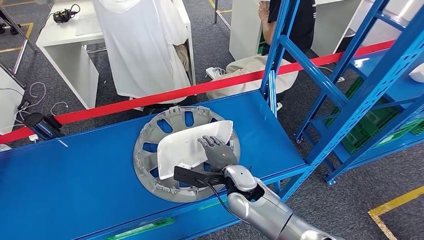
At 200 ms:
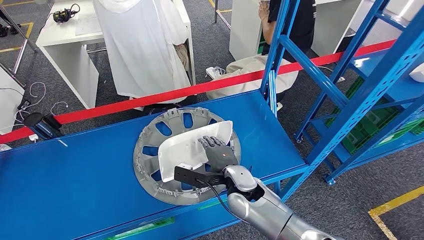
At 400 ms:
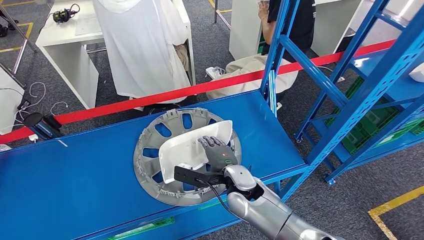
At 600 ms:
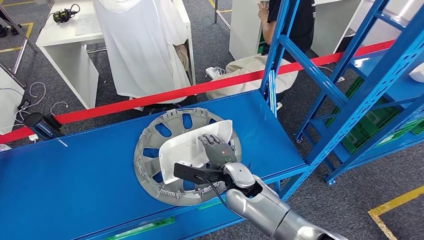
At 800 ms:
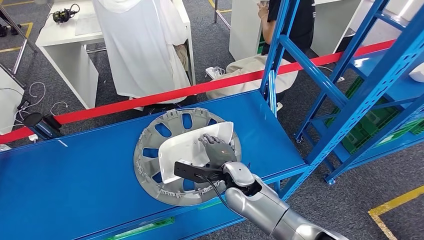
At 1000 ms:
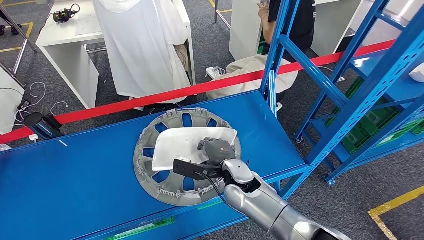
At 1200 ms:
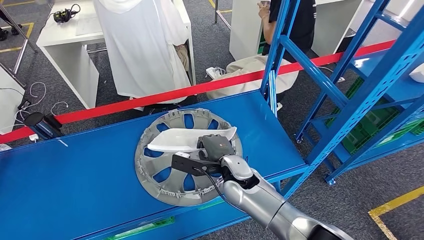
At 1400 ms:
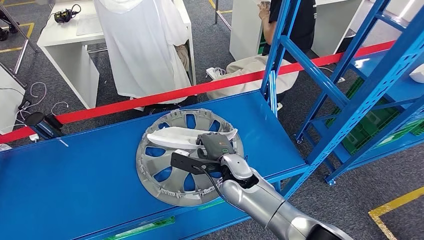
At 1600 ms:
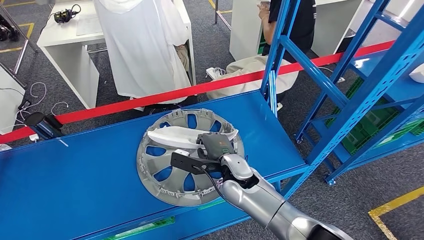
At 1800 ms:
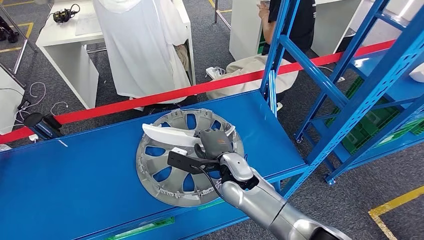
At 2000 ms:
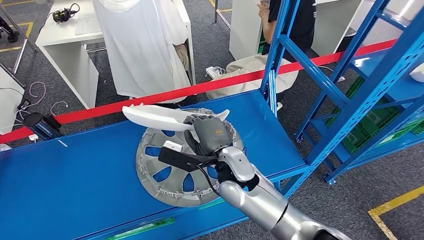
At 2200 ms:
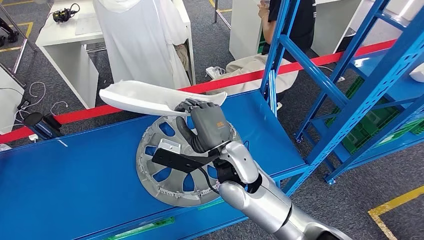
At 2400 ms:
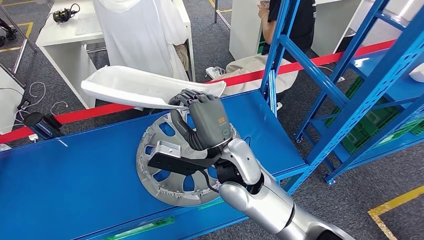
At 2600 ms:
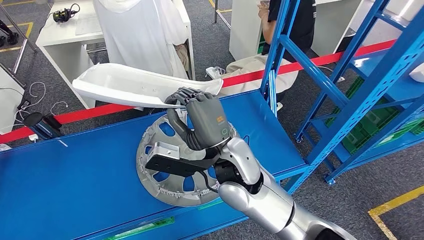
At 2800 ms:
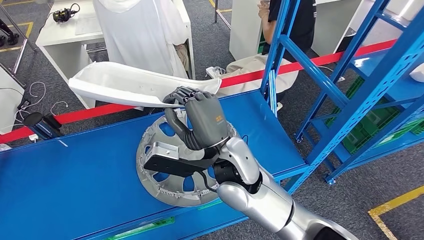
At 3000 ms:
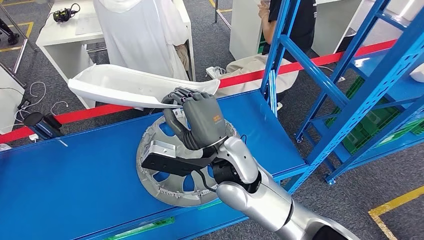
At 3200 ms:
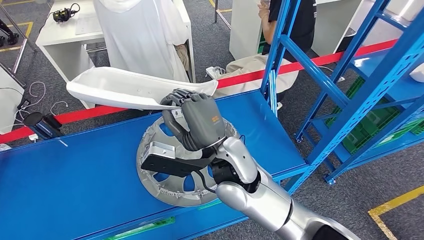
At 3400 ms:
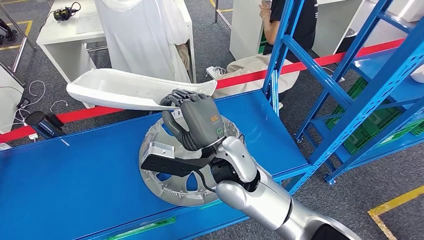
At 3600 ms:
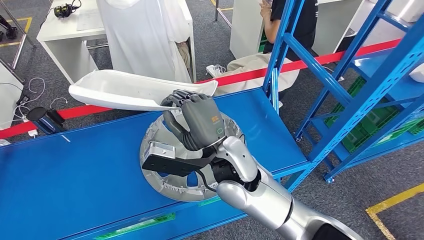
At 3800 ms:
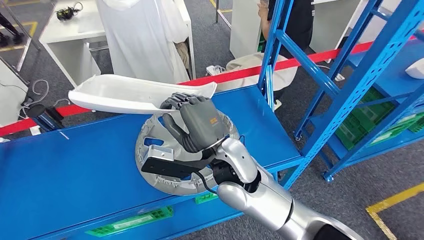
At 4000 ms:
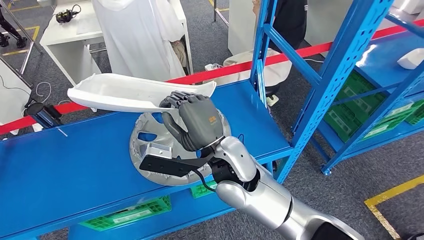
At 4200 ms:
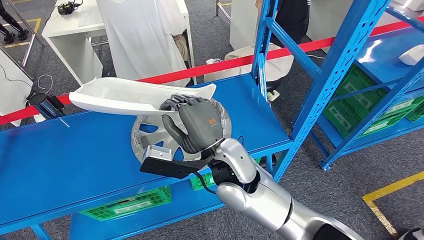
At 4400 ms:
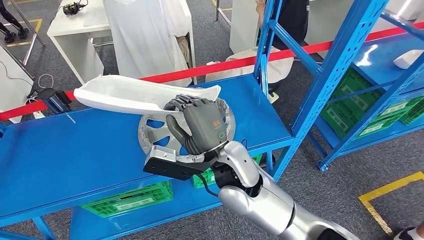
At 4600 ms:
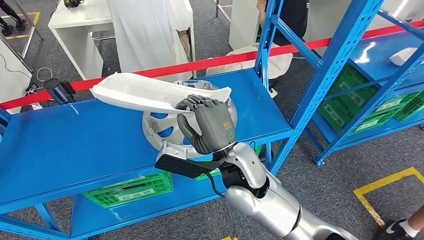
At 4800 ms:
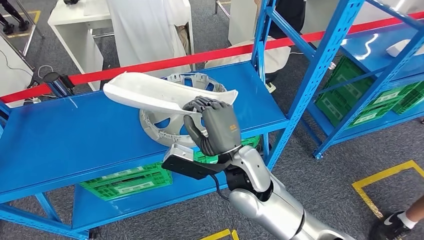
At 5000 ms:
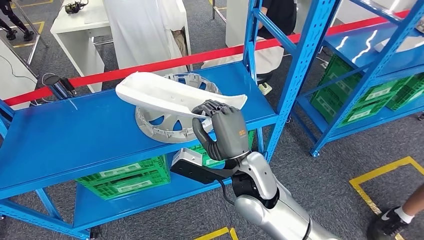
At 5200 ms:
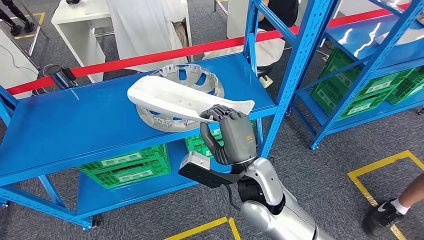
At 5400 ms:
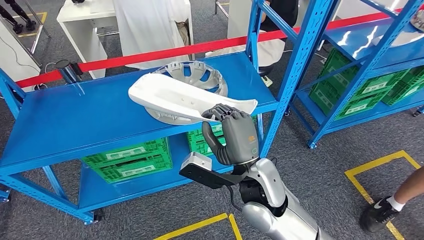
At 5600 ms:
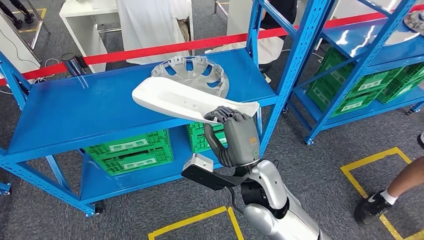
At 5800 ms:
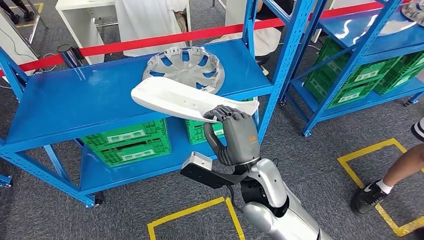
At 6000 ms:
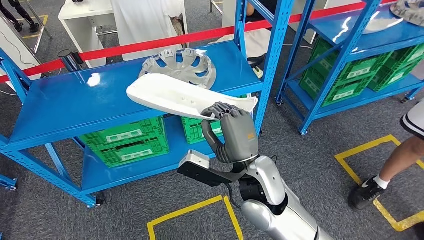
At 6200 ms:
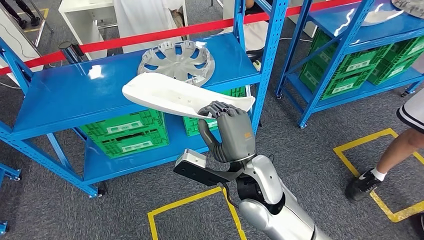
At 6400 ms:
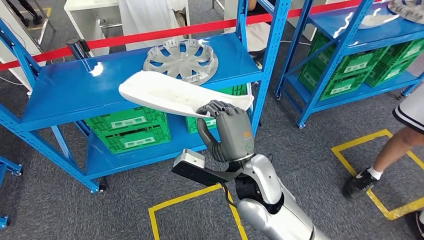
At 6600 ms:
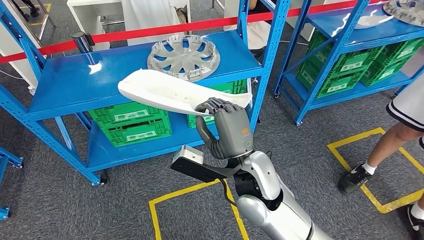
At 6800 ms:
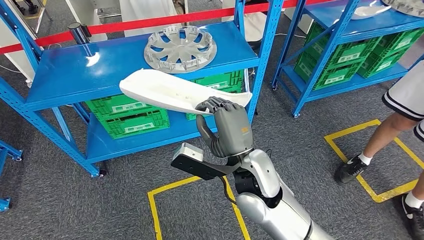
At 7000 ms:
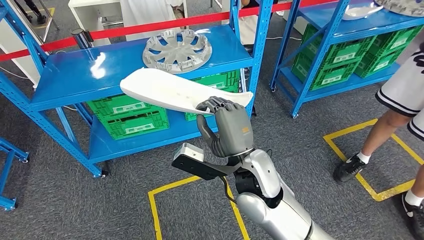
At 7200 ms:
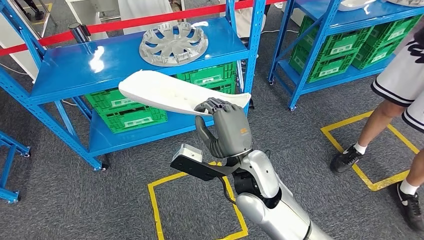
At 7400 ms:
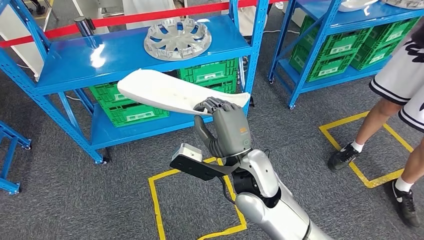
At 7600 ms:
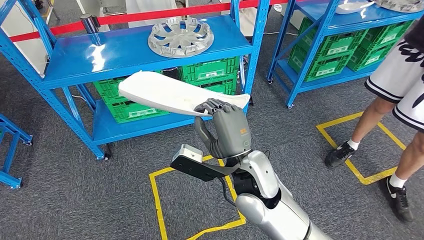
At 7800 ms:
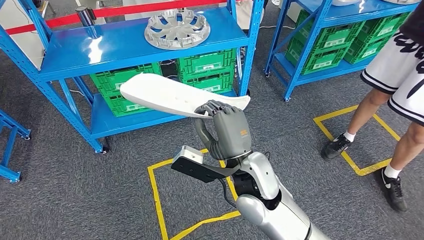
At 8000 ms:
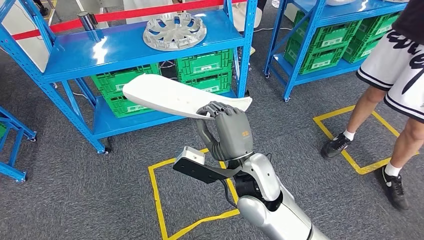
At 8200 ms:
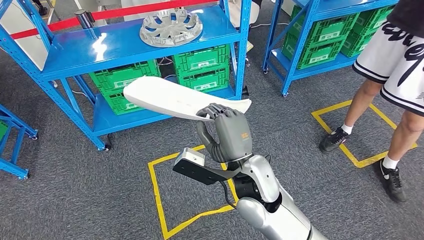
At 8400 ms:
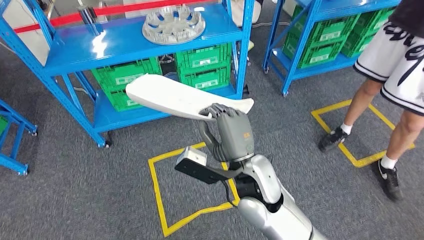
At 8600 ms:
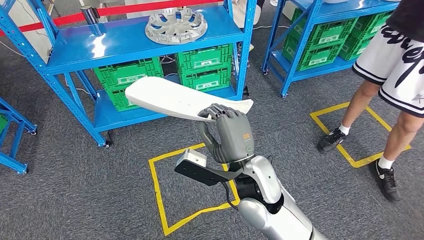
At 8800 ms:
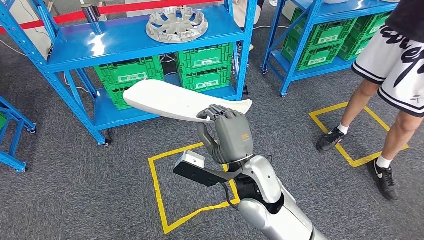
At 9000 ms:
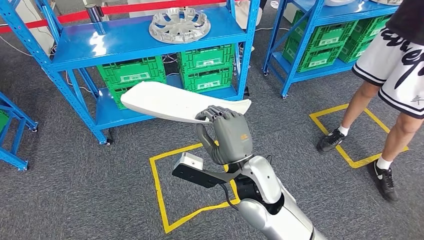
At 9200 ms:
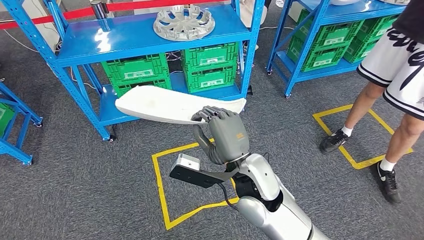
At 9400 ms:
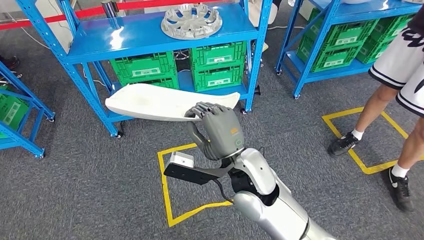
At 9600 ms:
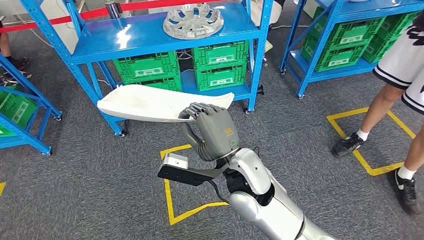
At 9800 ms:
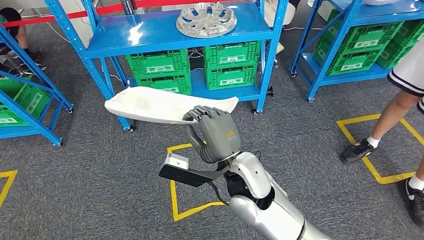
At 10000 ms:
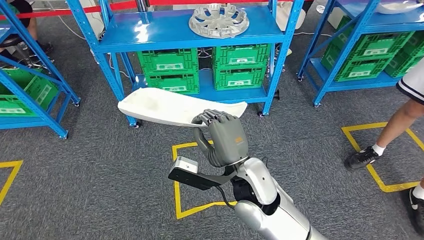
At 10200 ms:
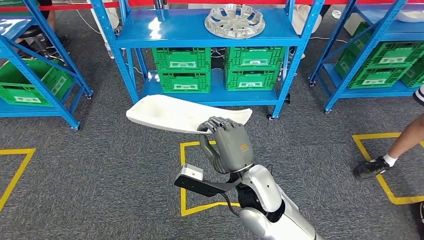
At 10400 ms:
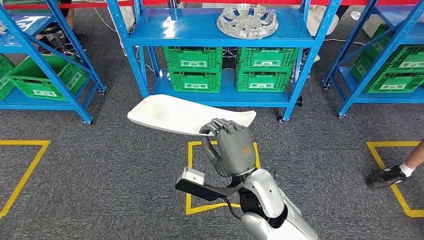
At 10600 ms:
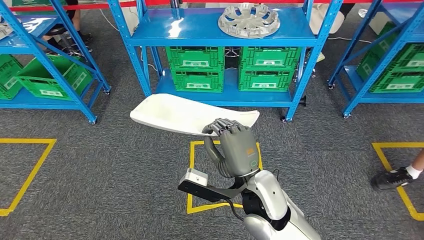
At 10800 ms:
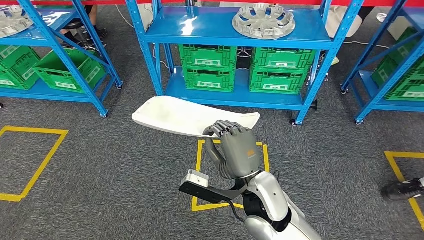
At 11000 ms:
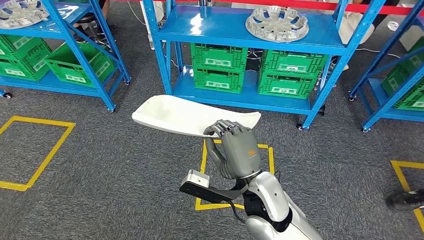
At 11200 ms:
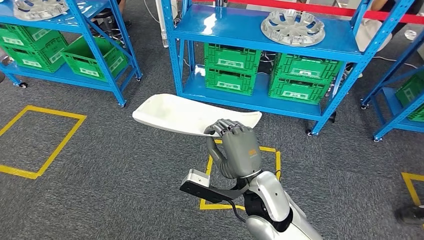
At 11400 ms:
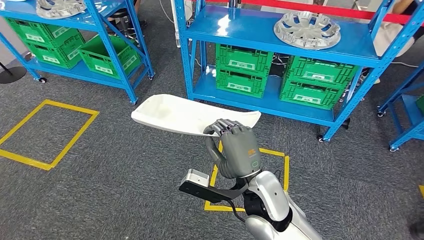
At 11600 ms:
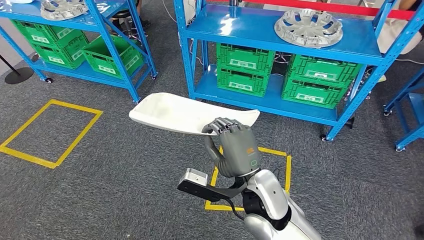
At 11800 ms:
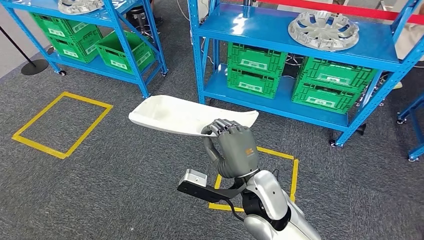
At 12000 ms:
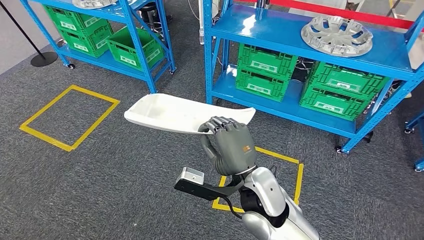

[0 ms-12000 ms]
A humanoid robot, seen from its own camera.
Step, 0 ms to 3000 ms: Pick up the small component from the shelf.
0 ms to 1600 ms: There are only small adjustments of the hands.
1600 ms to 3000 ms: The right hand is displaced upward by about 15 cm.

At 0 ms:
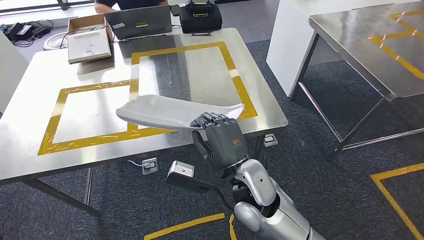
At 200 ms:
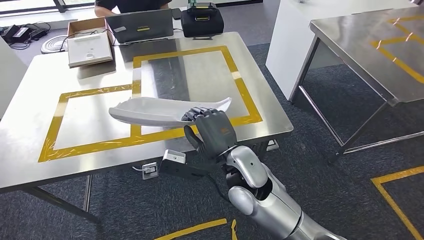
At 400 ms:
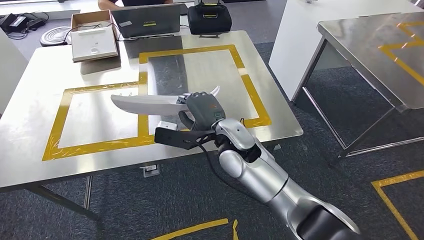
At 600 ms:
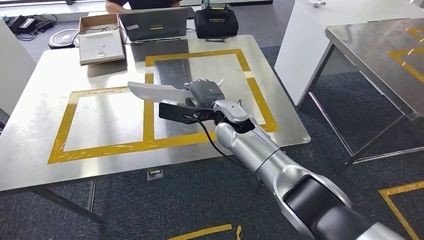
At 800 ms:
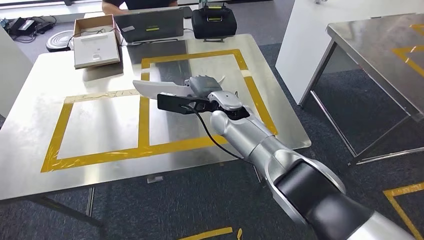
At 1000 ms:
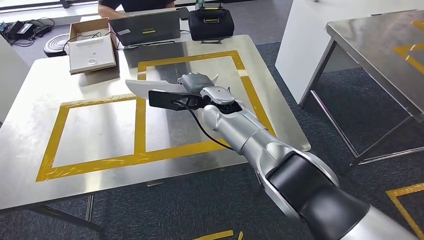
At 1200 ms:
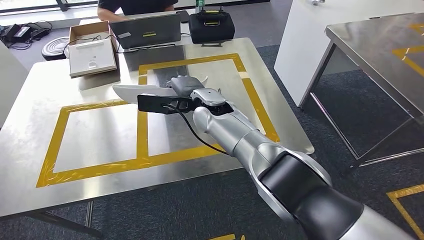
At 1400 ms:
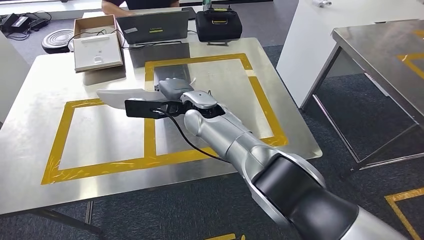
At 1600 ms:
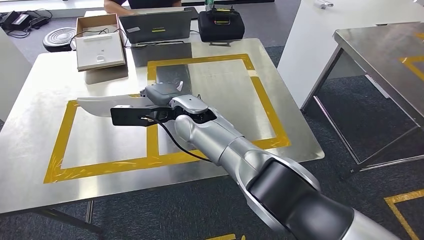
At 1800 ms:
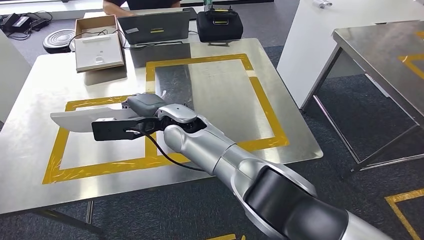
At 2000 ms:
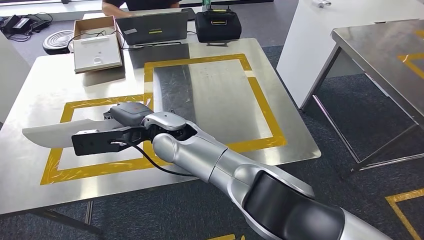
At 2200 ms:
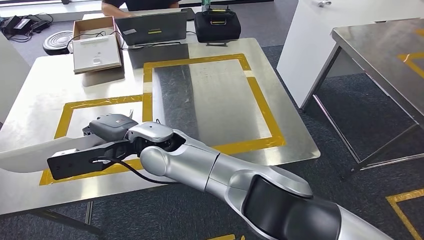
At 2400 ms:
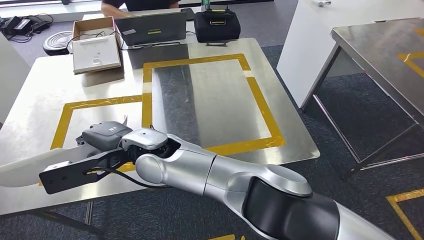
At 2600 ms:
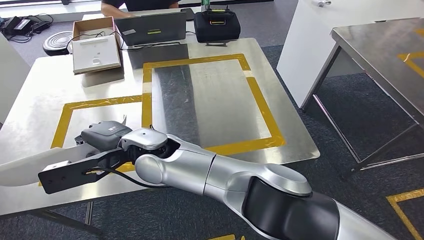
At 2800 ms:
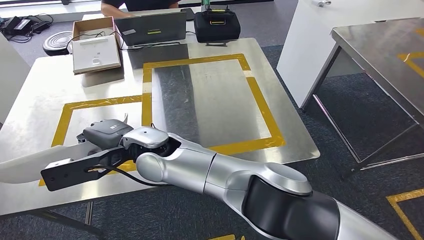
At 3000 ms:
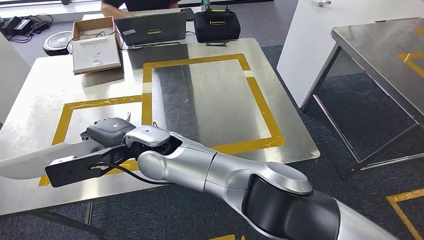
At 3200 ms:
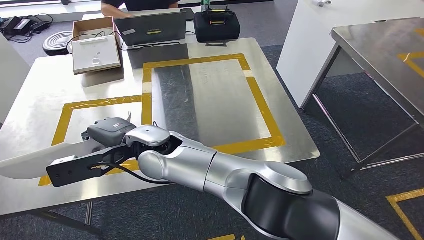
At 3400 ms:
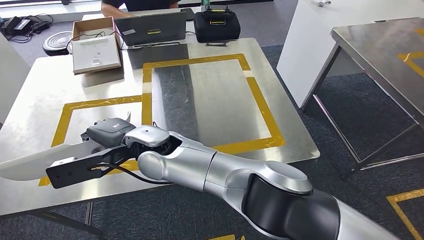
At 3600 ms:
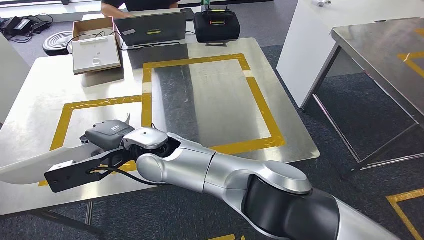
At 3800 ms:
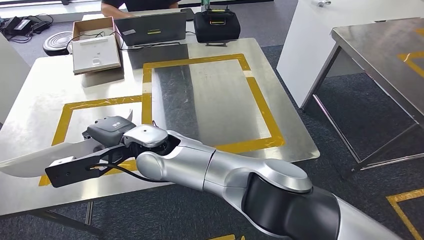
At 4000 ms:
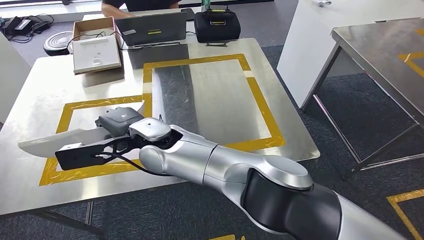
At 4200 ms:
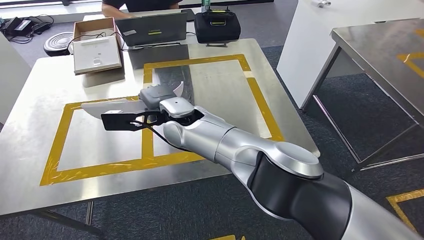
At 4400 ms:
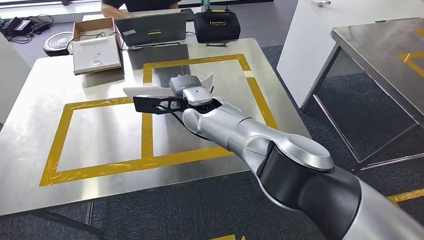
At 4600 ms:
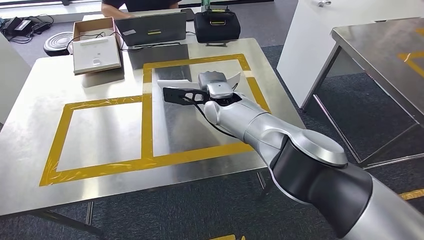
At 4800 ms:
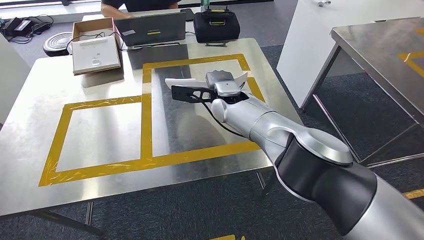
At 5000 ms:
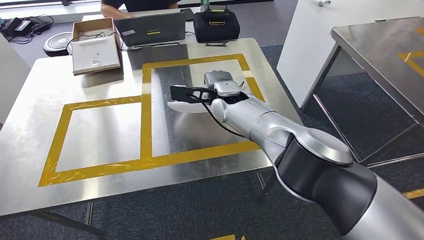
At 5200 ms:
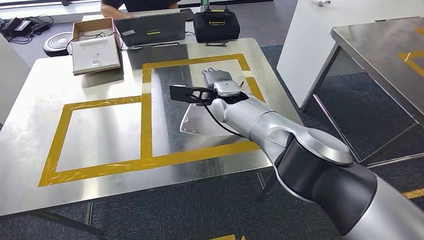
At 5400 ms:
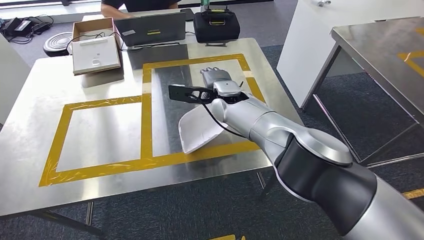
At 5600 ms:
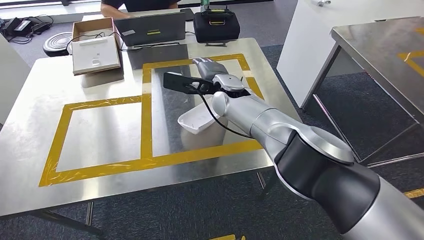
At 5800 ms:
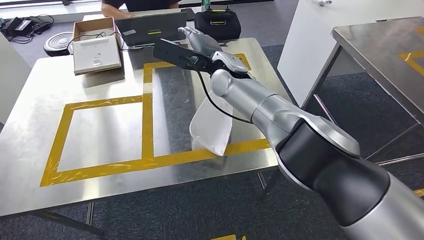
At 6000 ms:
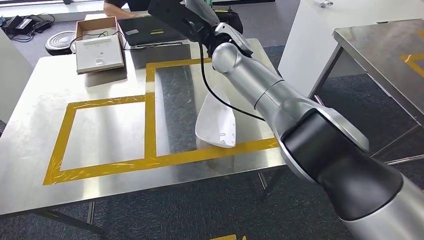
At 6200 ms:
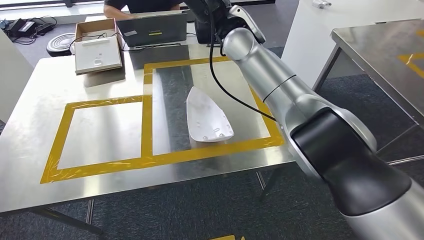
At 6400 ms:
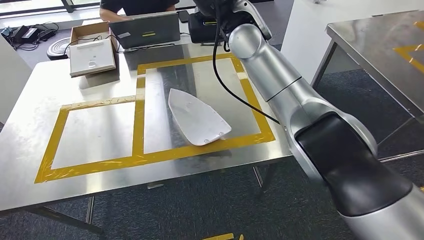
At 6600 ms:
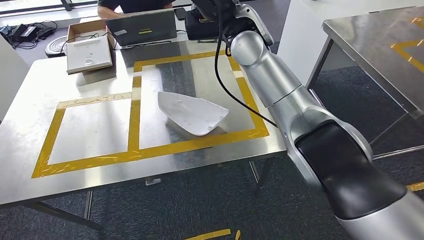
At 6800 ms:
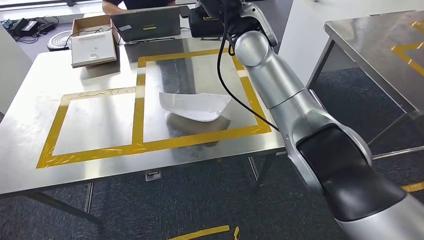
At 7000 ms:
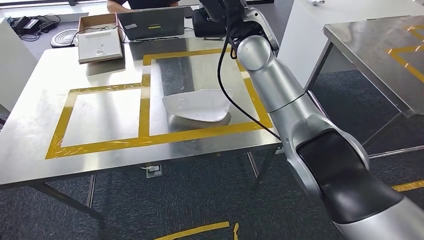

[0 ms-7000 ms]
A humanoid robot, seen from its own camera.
Step, 800 ms to 7000 ms: Insert the small component into the corresponding slot on the workbench.
